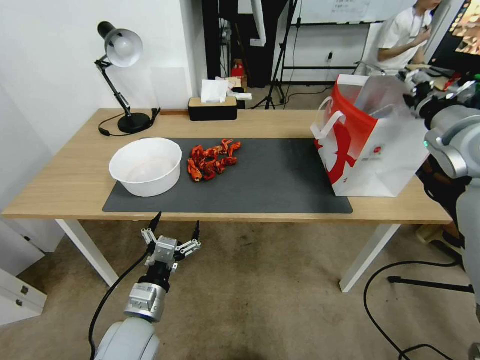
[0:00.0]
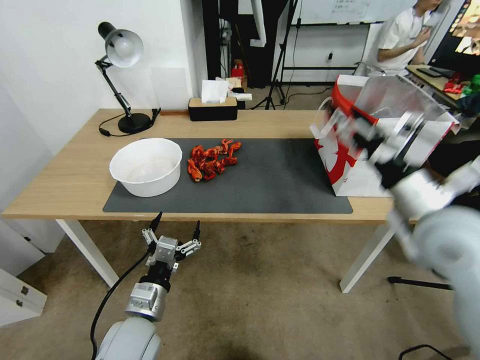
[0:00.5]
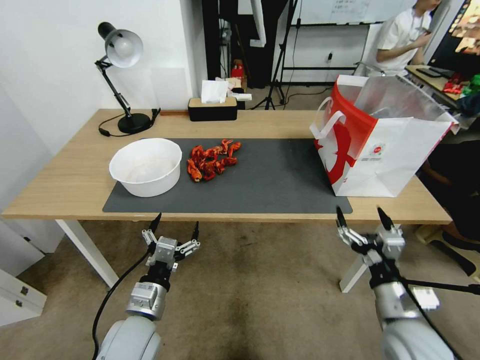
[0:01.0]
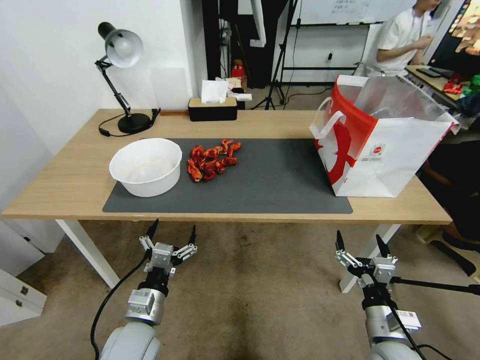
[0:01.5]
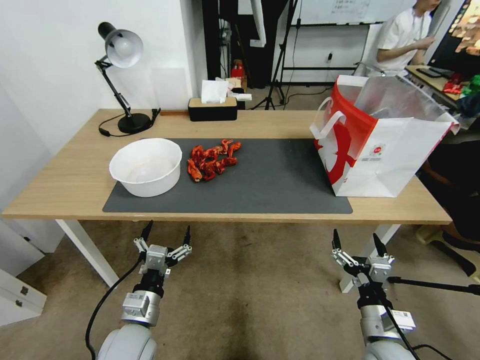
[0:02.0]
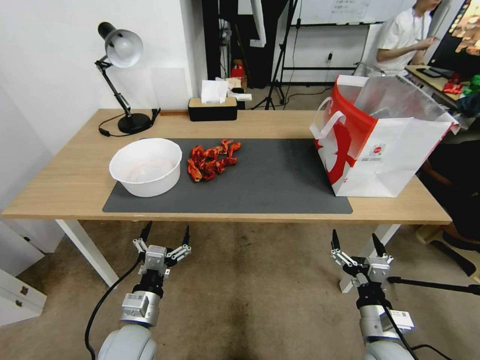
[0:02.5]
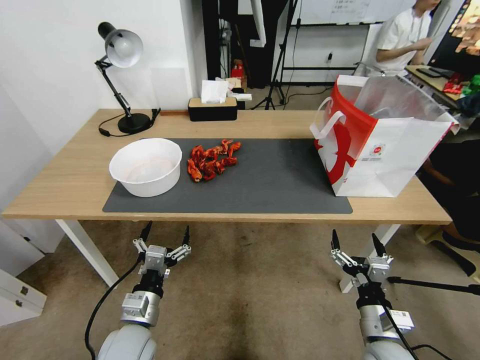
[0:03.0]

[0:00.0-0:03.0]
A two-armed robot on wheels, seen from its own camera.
0:00.0 to 0:01.5: The right gripper heads downward and backward, covering roughly 40 cm.
0:01.5 to 0:03.0: Both grippers stay put.
